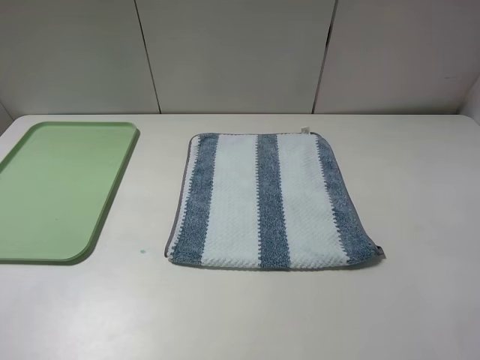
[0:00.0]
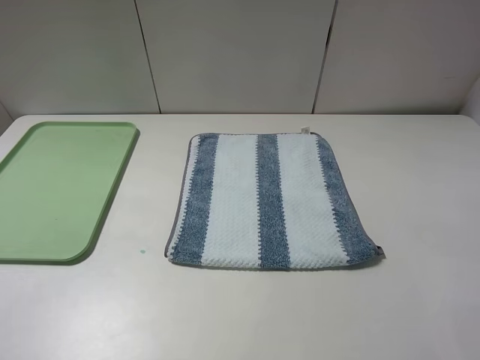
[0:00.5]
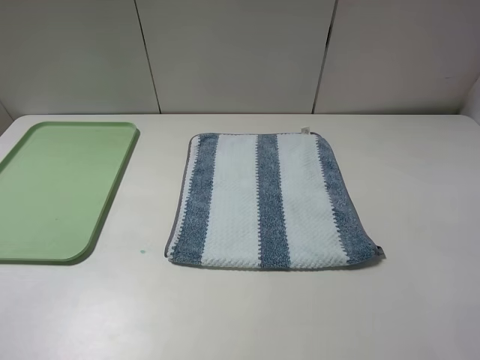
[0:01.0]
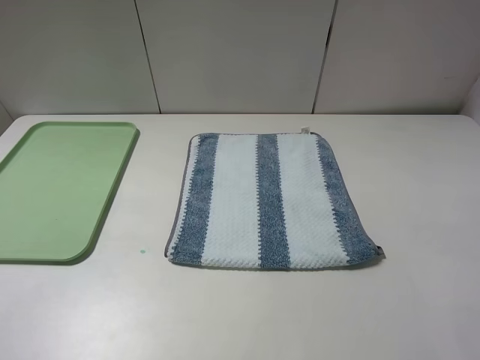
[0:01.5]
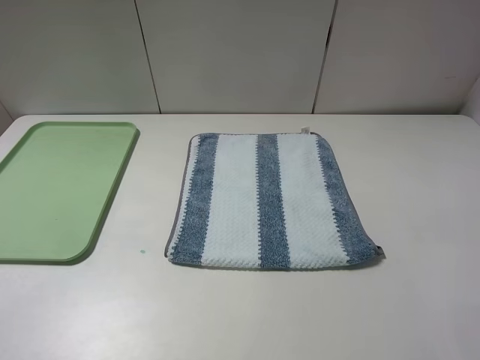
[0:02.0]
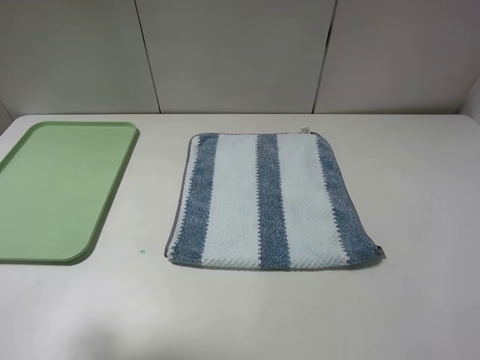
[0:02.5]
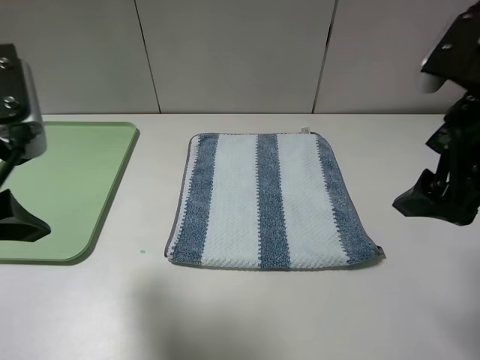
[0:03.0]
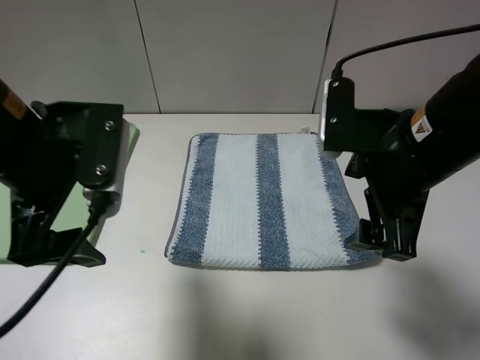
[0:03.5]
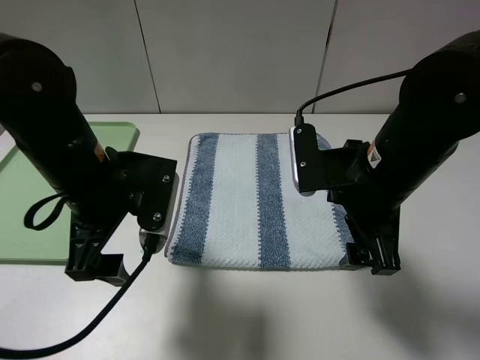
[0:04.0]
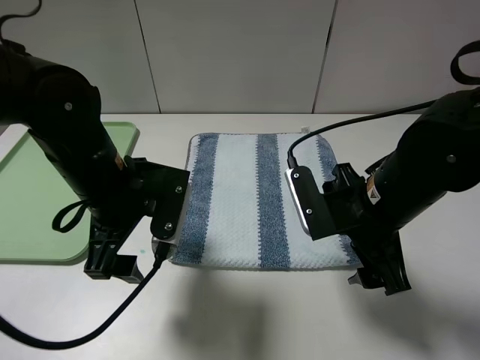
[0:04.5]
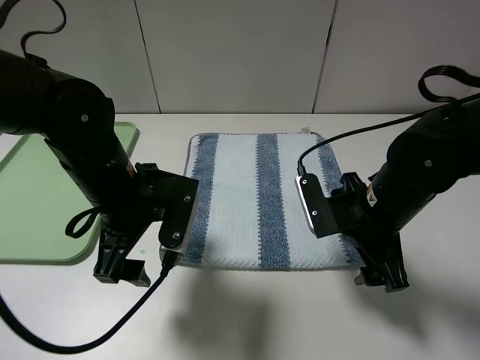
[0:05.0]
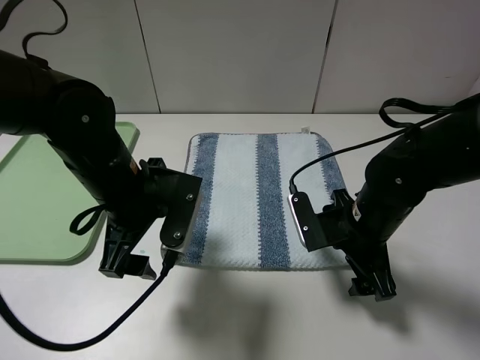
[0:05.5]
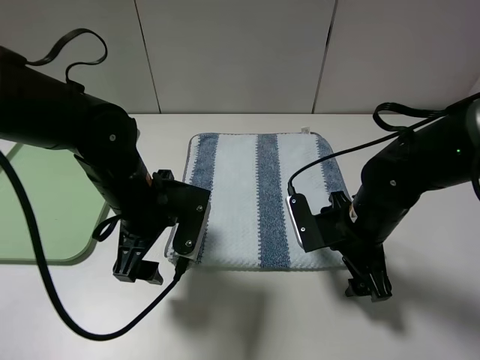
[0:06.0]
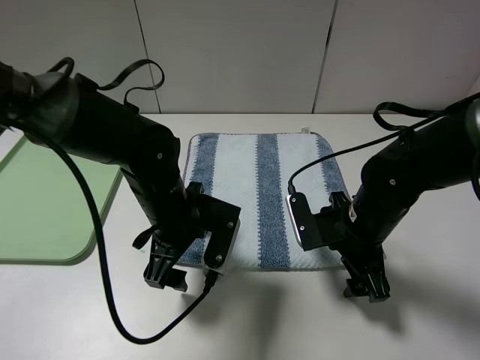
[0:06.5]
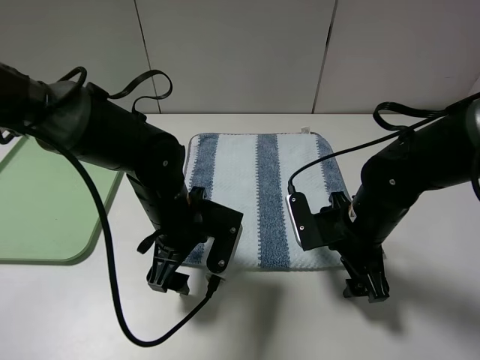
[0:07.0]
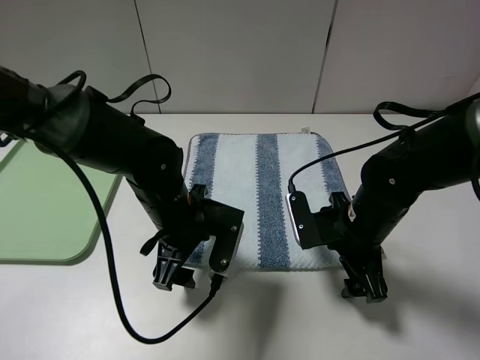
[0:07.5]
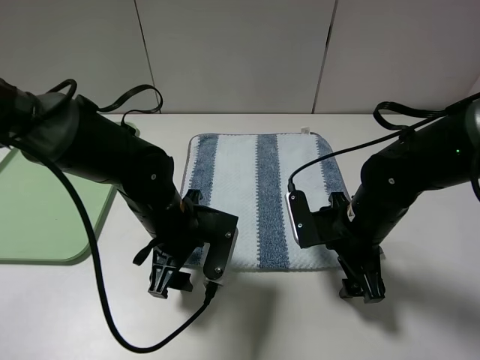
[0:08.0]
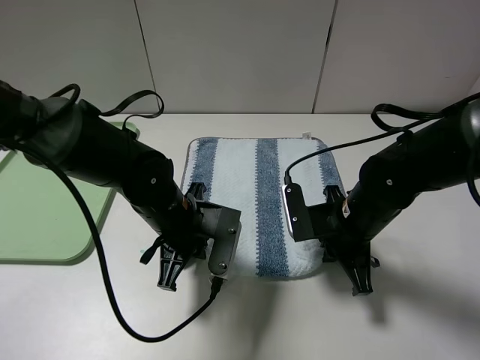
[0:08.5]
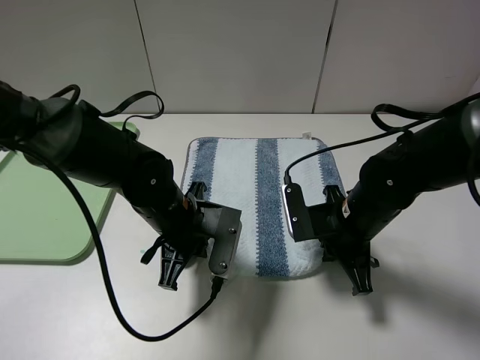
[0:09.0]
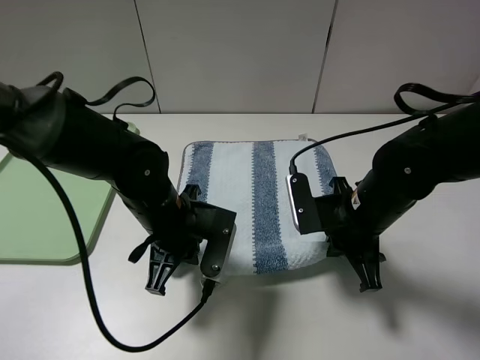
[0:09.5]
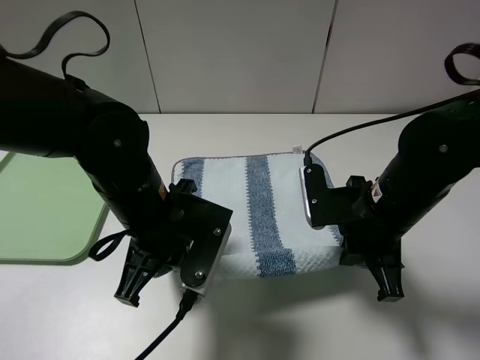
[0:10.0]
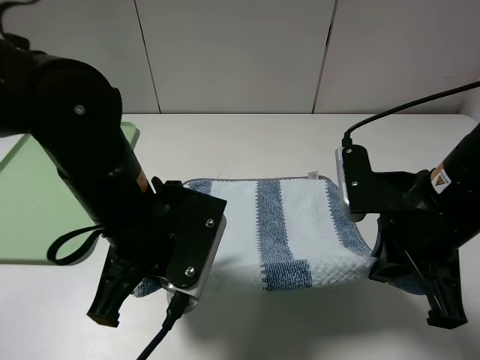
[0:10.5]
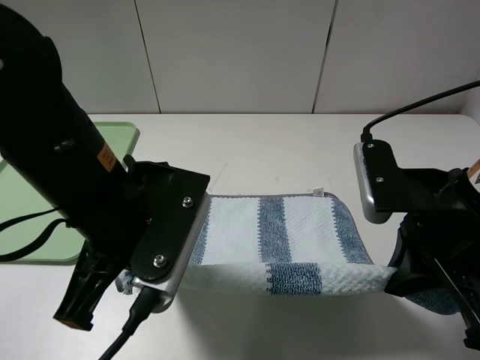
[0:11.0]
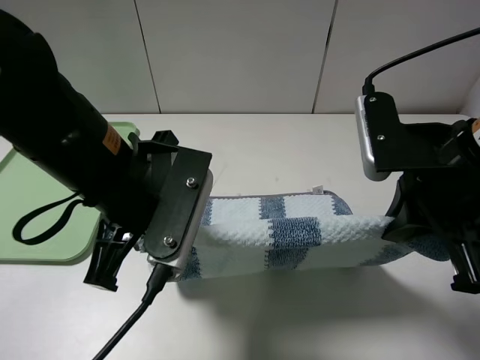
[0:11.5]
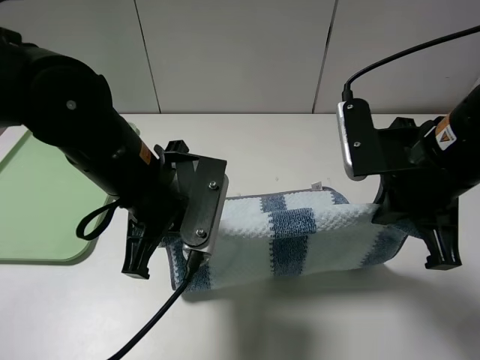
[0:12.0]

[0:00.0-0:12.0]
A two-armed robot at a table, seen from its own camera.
Step, 0:00.0 to 0:09.0: Grasp the blue white towel with the left gripper.
0:02.0 to 0:04.0: The left gripper moves forward, to the right and downward, about 30 cm. The right gripper shifts approximately 25 cm forward, to the left and downward.
0:04.0 to 0:06.0: The left gripper moves downward, some 5 cm. Meanwhile the right gripper heads downward, covering about 10 cm.
0:06.0 to 0:08.0: The left gripper shifts by approximately 5 cm.
0:08.0 to 0:10.0: Both grippers move upward, about 5 cm. The left gripper closes up. The right gripper closes.
0:10.0 to 0:12.0: The right gripper travels upward by about 10 cm.

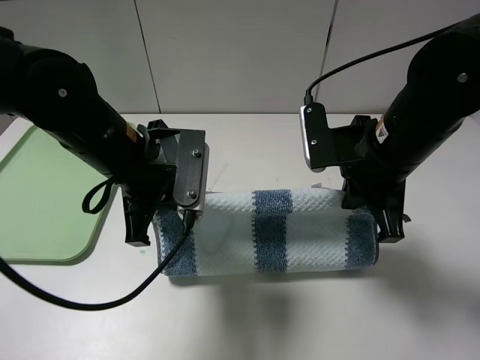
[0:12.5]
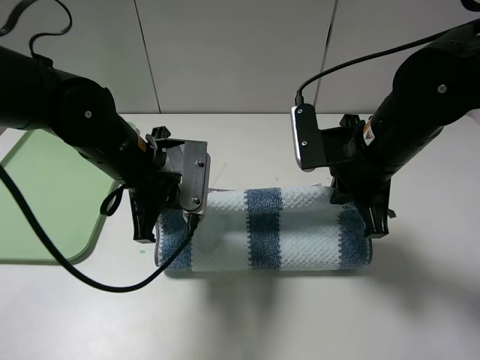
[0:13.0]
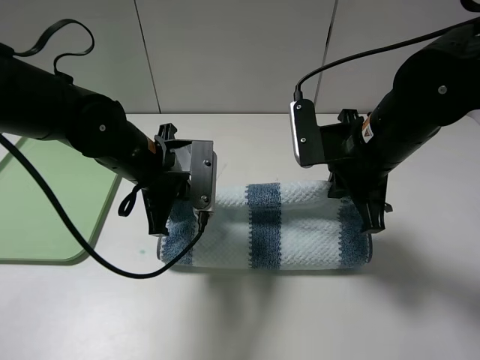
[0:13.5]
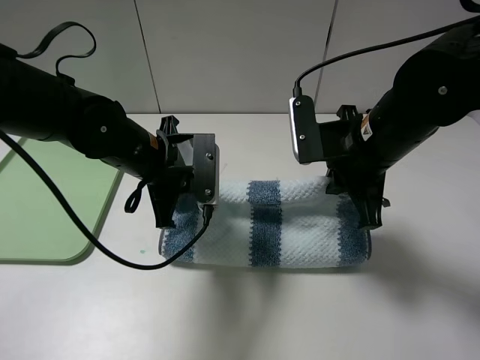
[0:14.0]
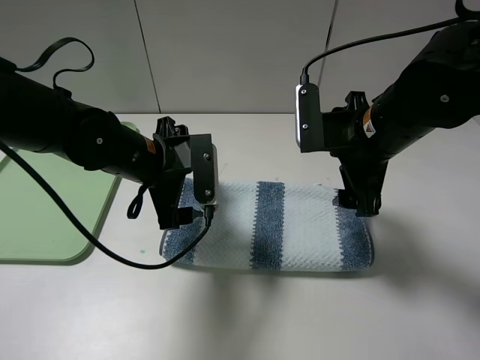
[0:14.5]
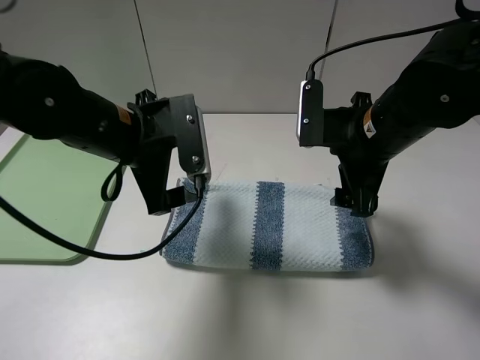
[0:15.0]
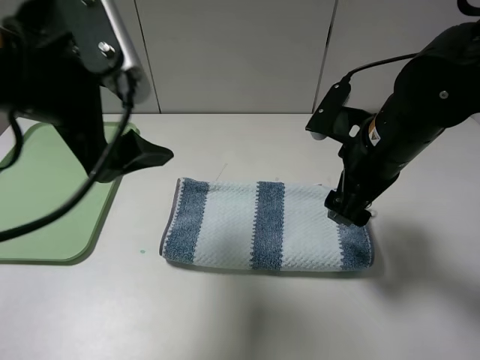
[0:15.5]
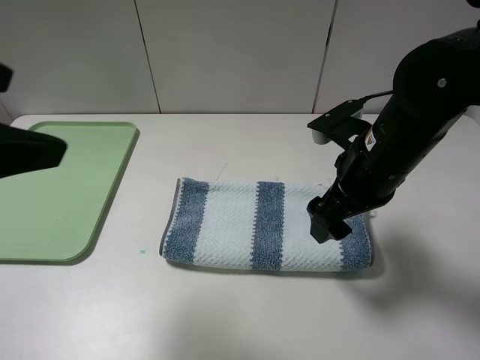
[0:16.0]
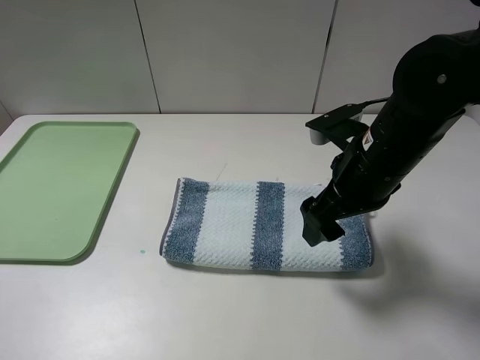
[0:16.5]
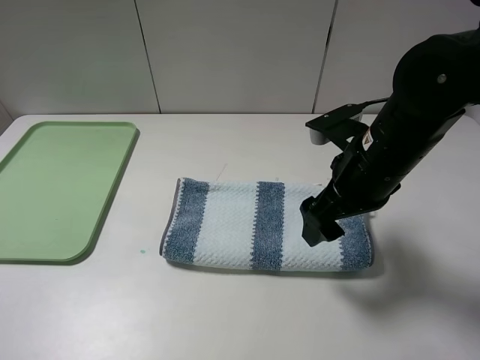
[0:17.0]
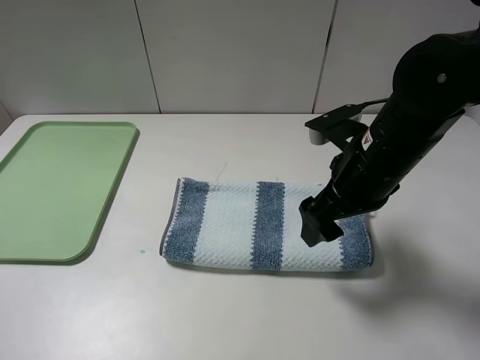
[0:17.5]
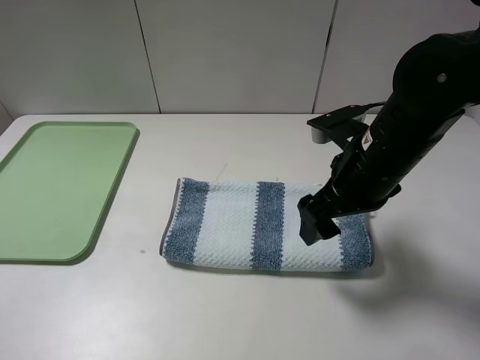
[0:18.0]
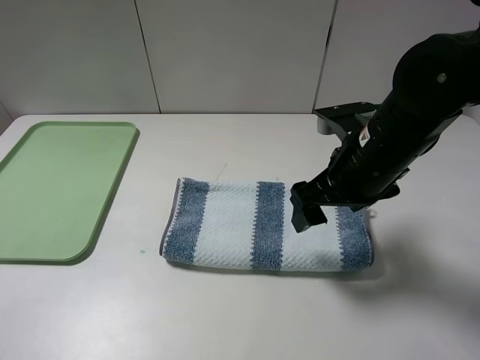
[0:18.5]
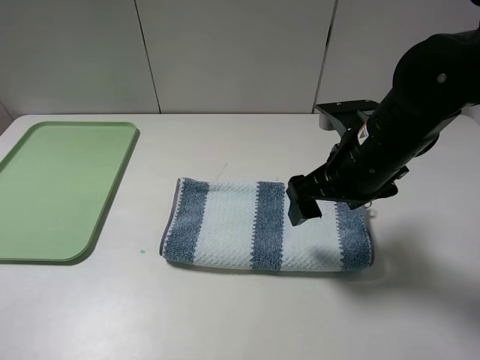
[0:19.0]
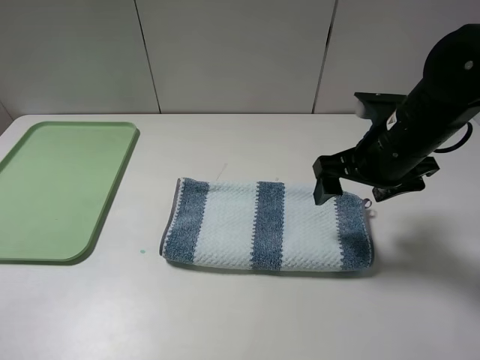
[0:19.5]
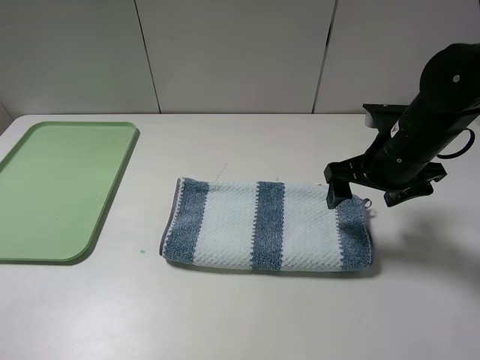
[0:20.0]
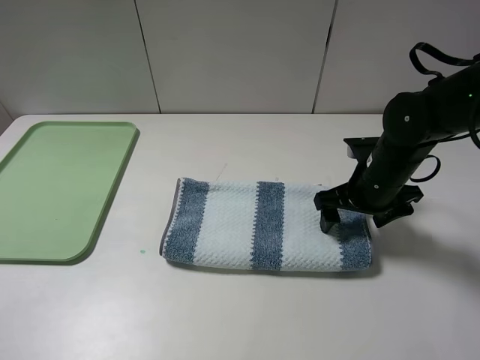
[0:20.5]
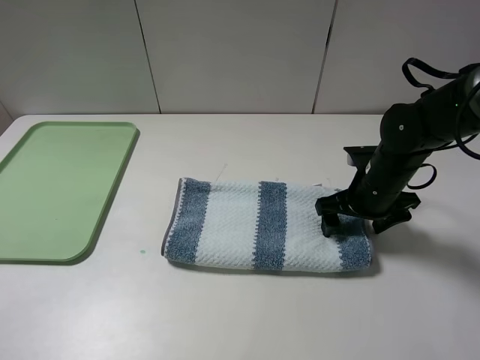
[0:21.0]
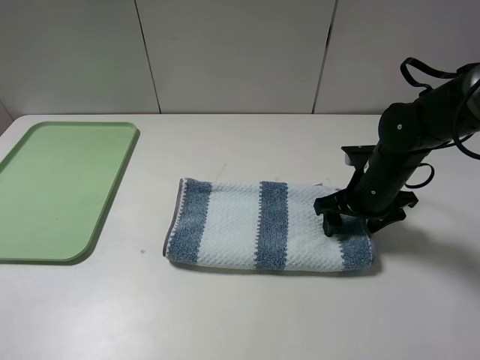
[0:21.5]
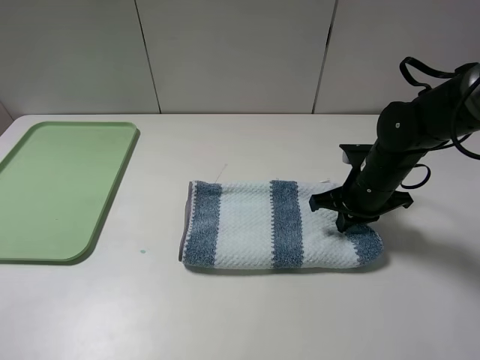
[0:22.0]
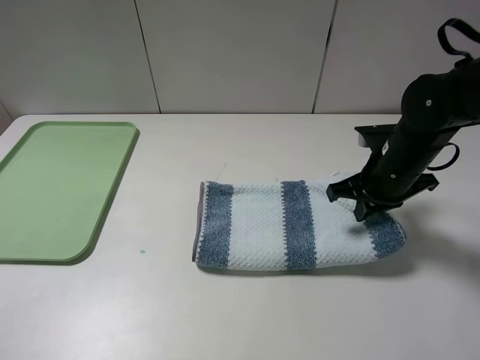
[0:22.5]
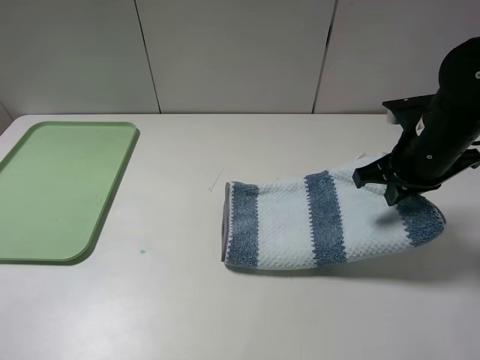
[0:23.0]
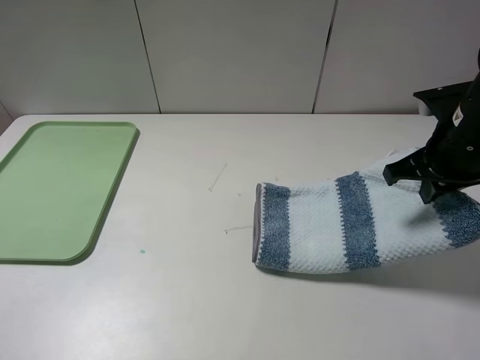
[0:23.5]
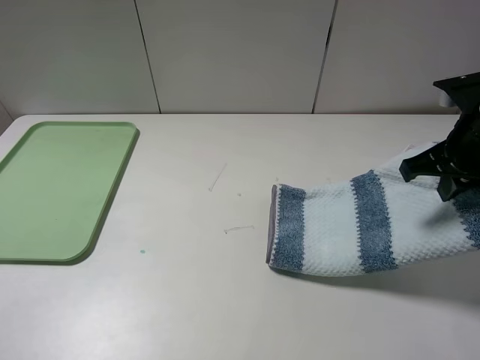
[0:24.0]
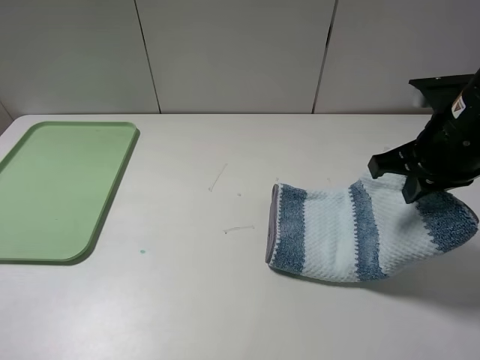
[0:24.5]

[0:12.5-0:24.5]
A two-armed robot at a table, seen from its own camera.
Step, 0:12.5 to 0:14.5: Fold the blue white towel upwards with the left gripper.
Step, 0:15.0 to 0:22.0: Grasp the blue white towel with the right gripper.
0:12.5 to 0:14.5: The right gripper opens up. The left gripper moves approximately 5 cm, and opens up.
0:14.5 to 0:16.5: The left gripper moves backward, to the left and upward, approximately 35 cm.
0:18.5 to 0:20.5: The right gripper travels downward, to the right and forward by approximately 10 cm.
0:20.5 to 0:22.5: The right gripper closes its fingers.
0:22.5 to 0:24.5: The right gripper heads upward and backward, covering some 10 cm.

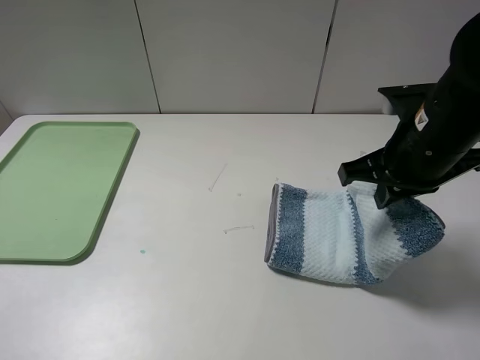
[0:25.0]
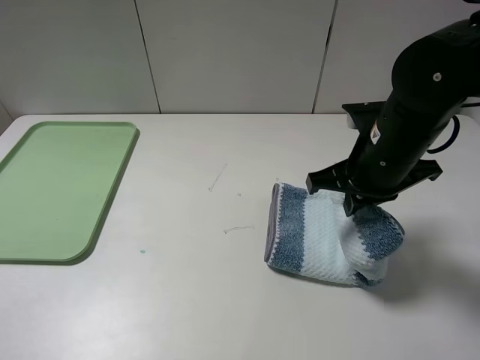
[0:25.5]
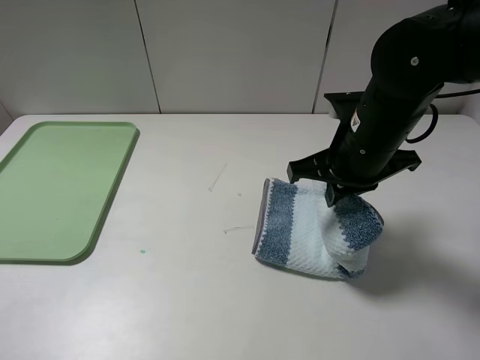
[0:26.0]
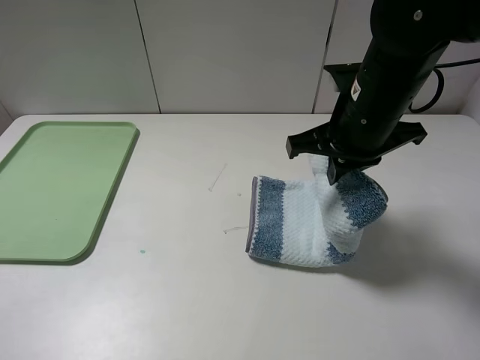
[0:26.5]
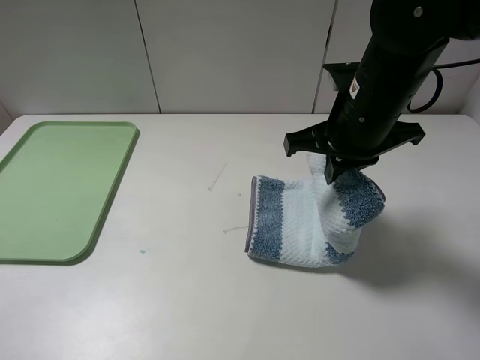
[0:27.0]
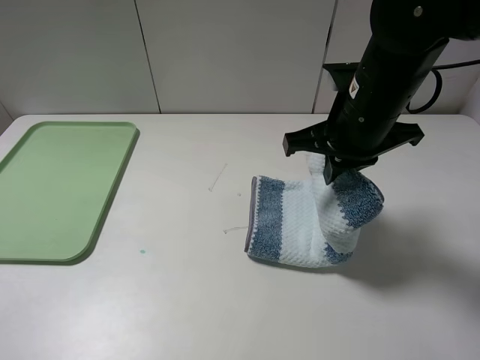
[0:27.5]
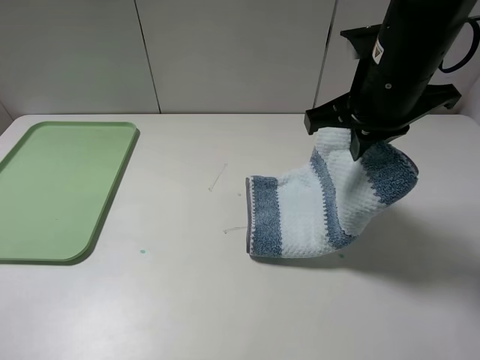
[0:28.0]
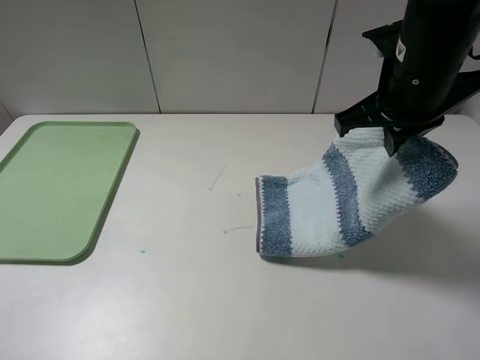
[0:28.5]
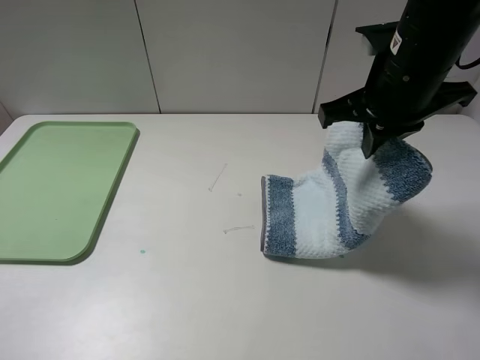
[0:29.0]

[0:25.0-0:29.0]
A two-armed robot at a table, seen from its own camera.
0:25.0 to 0:27.0: The right gripper heads to the left, covering about 5 cm.
0:27.0 to 0:29.0: The grippers stay close to where they were, moving slightly.
